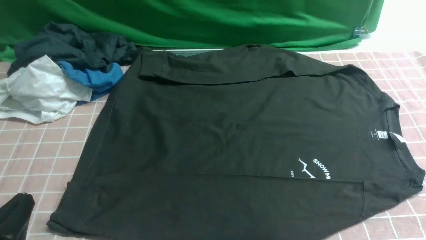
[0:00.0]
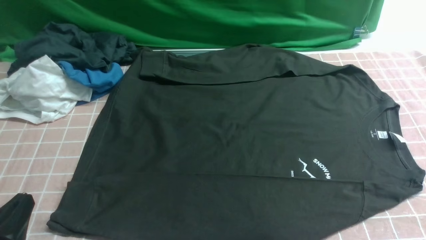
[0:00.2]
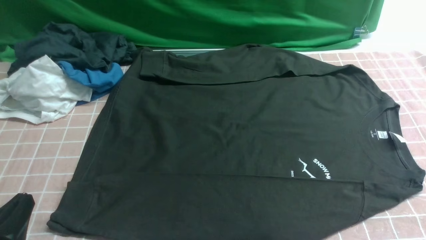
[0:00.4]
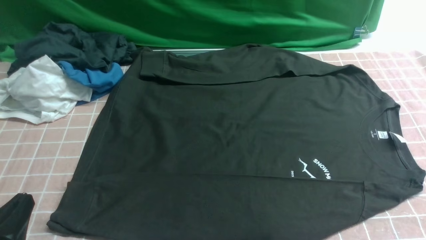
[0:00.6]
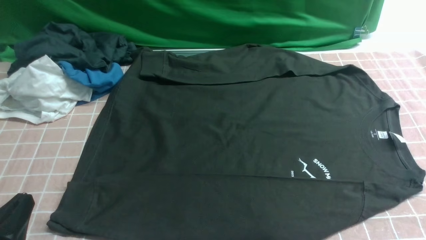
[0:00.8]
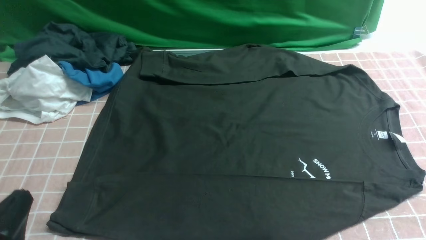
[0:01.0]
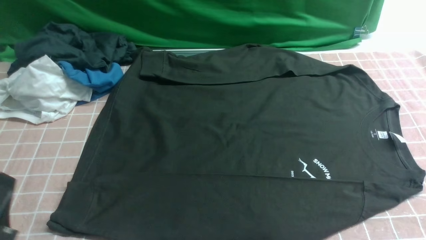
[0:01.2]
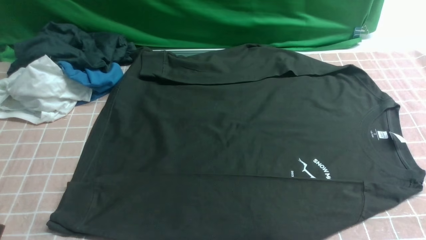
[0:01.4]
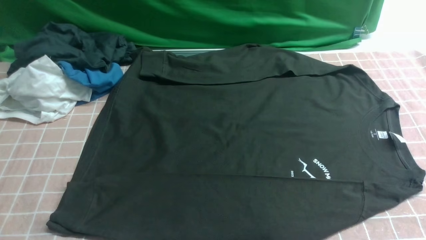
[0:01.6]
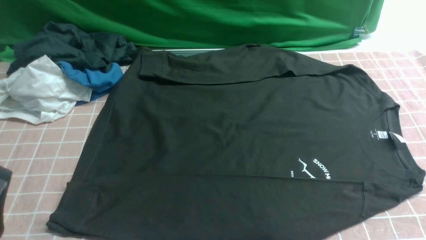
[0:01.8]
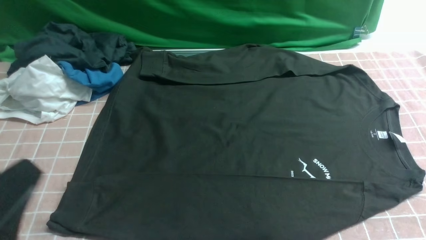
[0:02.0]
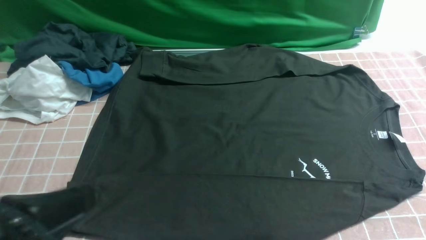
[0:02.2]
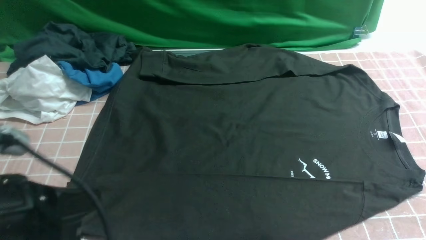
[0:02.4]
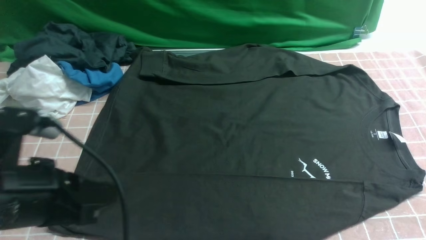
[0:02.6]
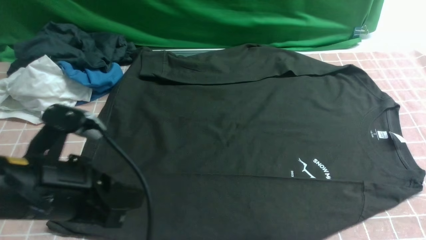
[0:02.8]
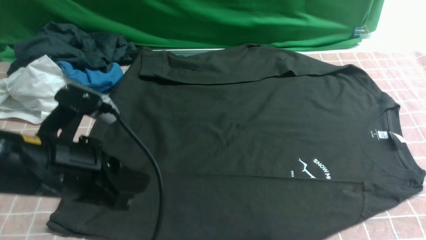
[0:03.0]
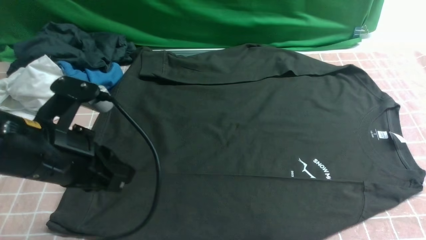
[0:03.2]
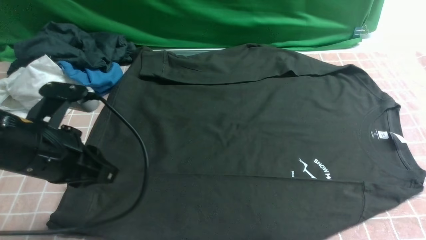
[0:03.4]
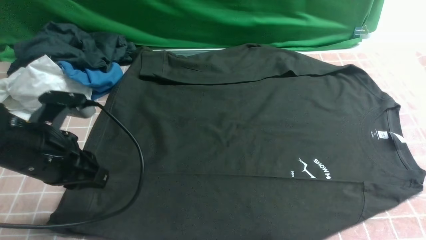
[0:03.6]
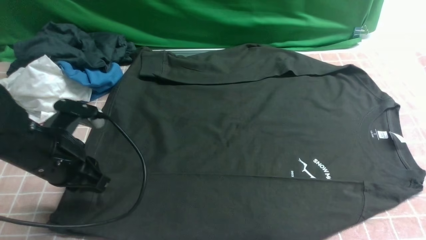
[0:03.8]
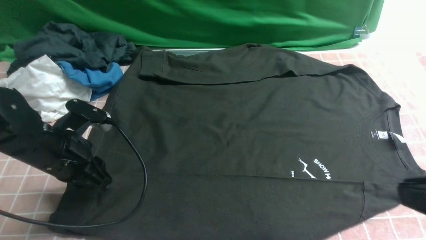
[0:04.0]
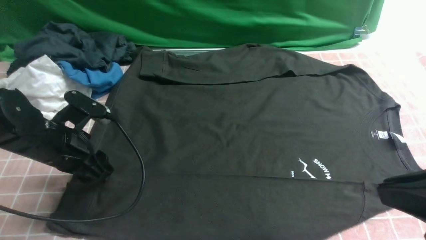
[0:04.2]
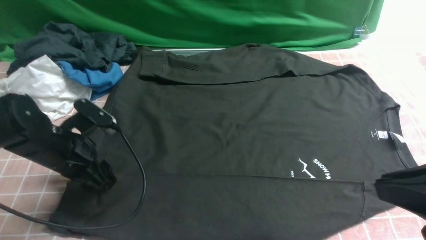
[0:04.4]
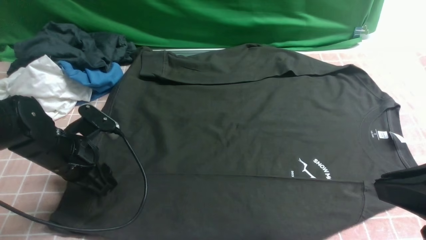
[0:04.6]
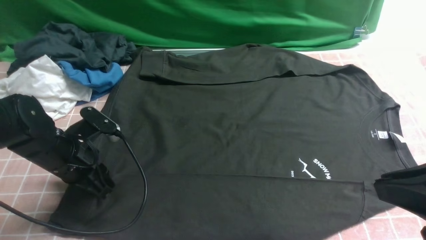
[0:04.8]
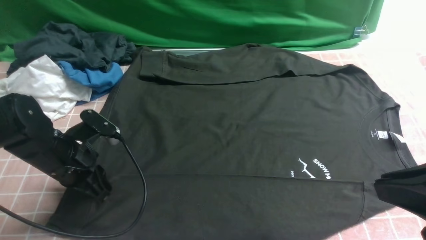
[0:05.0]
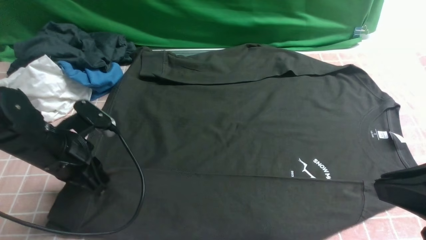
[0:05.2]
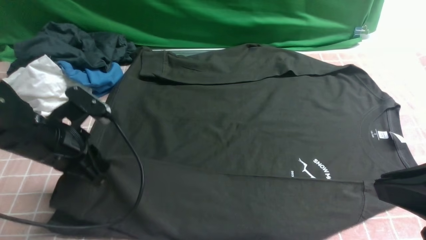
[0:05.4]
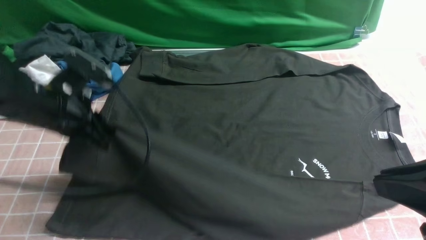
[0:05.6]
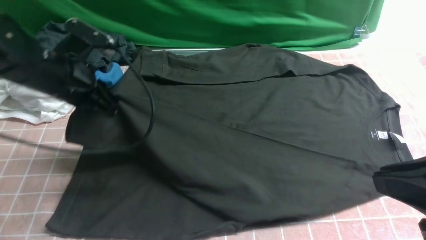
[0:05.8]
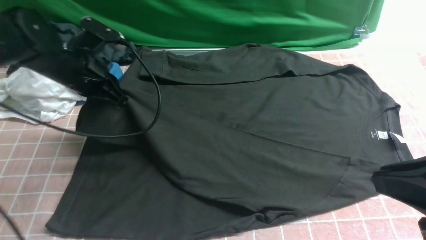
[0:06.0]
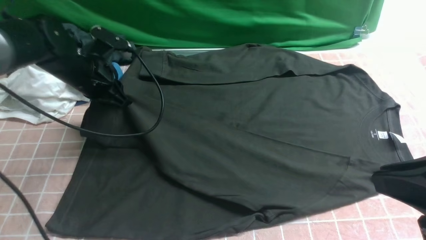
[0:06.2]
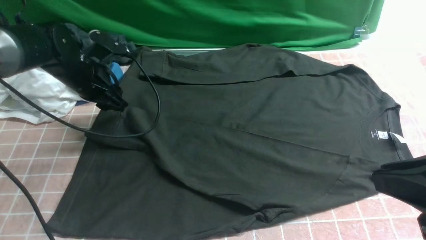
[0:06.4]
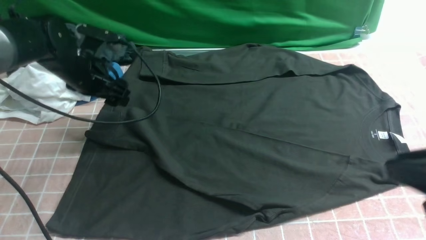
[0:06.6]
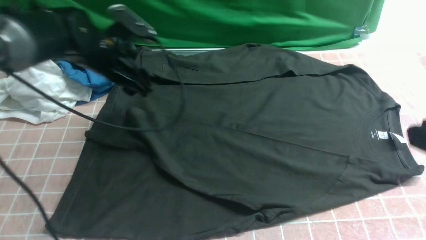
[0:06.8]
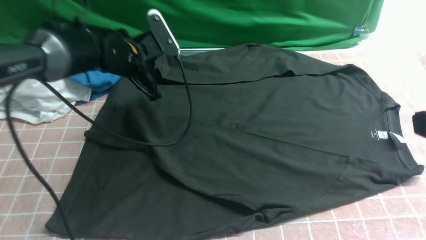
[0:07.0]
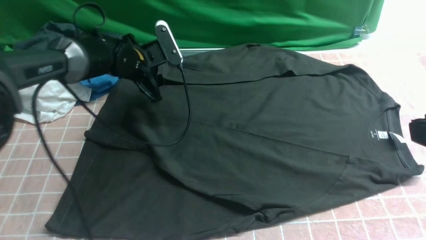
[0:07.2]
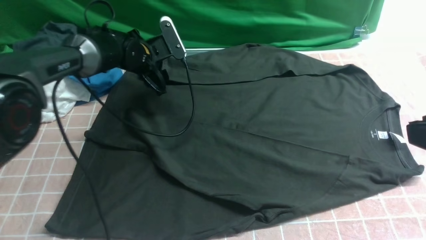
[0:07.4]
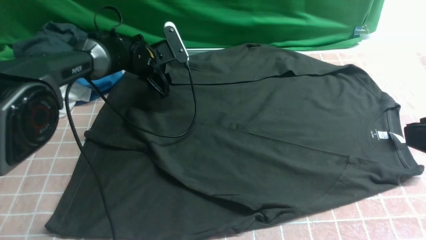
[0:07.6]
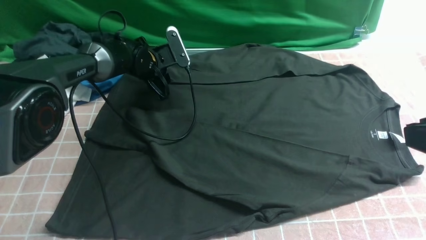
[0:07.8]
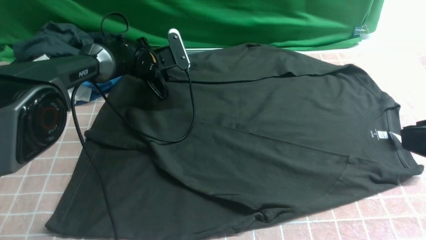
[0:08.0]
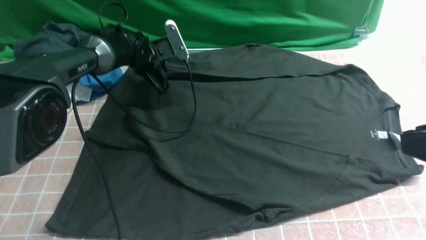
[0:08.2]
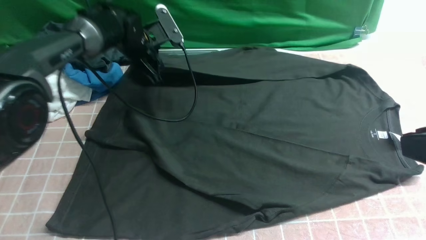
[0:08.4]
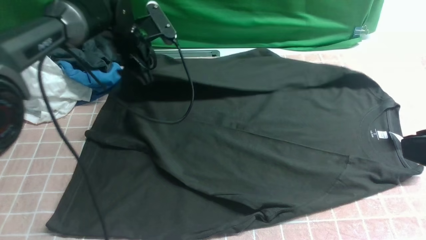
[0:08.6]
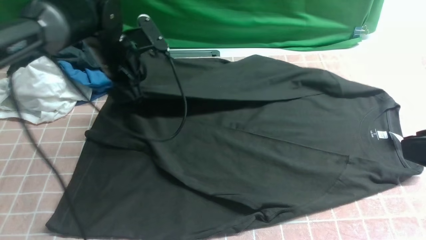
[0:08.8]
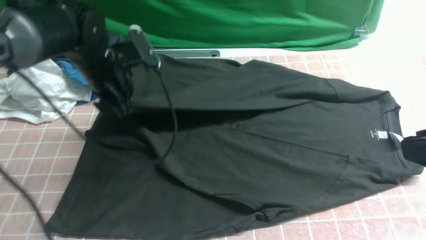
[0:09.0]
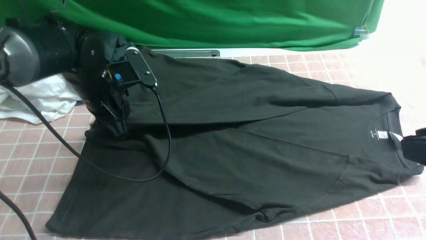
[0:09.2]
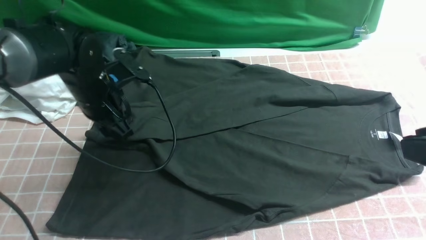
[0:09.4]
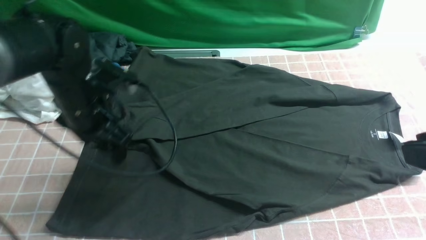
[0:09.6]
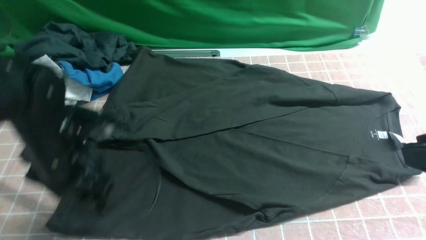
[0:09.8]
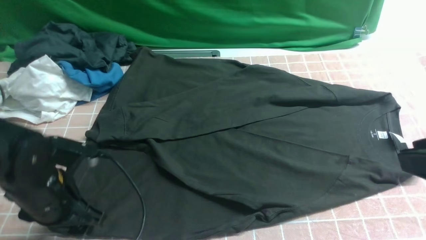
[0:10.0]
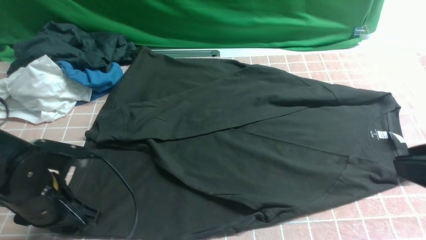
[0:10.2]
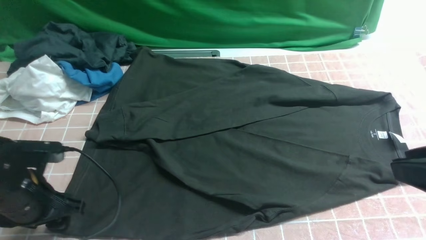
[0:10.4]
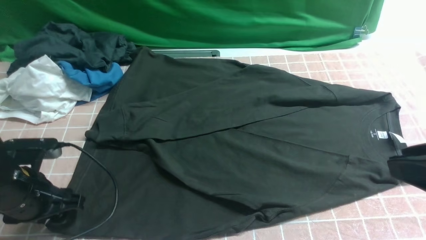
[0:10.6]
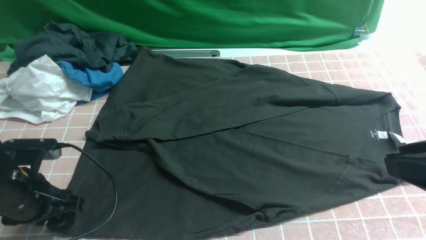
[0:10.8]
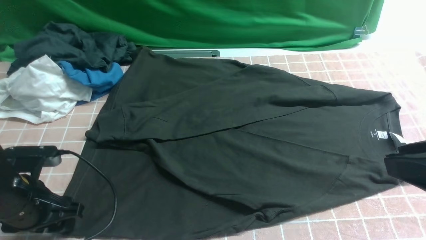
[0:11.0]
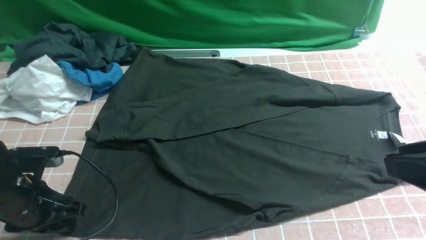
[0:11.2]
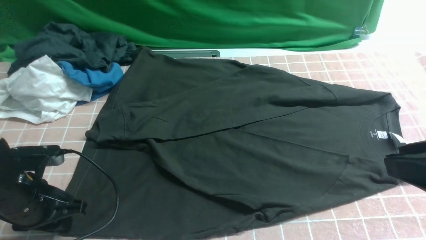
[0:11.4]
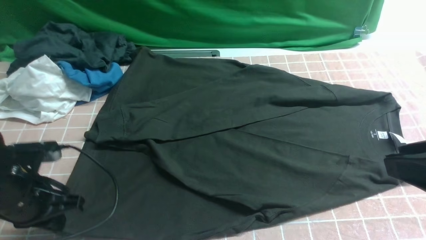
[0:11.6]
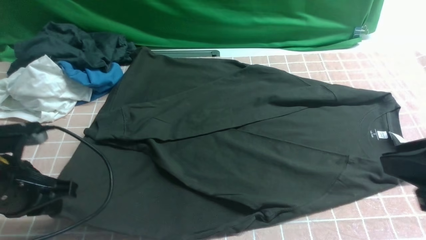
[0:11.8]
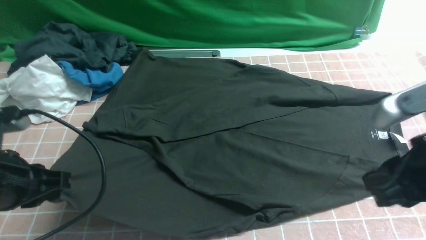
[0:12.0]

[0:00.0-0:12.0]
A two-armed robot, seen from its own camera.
Step, 0:00.0 to 0:04.8: use the left arm to clamp the cuff closest to it.
Step, 0:05.0 to 0:06.4: use the left arm to drag and place the cuff at the centered position on the left edge of the fabric.
Step, 0:06.6 to 0:08.0: use the left arm to clamp the cuff farthest from it.
Step, 0:08.2 to 0:09.2: use the left arm to drag and drop the cuff onto the cuff closest to the left arm.
0:01.6 to 0:03.0: The left gripper travels forward, to the right and upward by approximately 15 cm.
0:03.0 to 0:04.4: The left gripper heads downward, forward and to the left, covering some 15 cm, and opens up, while the right gripper goes about 15 cm upward, to the left and forward, and closes up.
0:04.4 to 0:06.0: The left gripper moves forward and upward, approximately 10 cm, and closes.
0:06.0 to 0:07.6: The left gripper moves forward, downward and to the right, approximately 15 cm, and opens its fingers.
0:07.6 to 0:09.0: The left gripper is displaced backward and upward by some 15 cm, and closes.
0:09.0 to 0:10.4: The left gripper goes roughly 20 cm backward, and opens.
0:10.4 to 0:12.0: The left gripper shifts roughly 10 cm upward, and closes up; the right gripper travels forward and downward by some 10 cm.

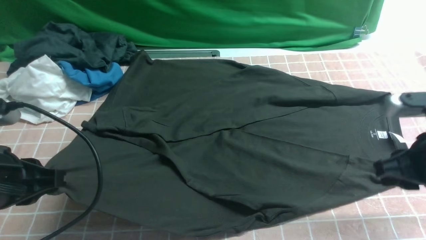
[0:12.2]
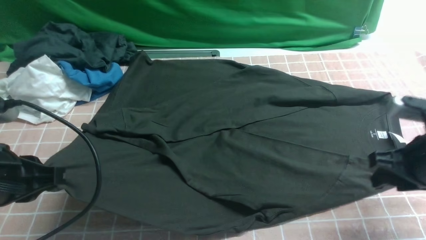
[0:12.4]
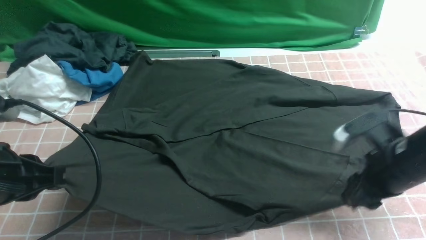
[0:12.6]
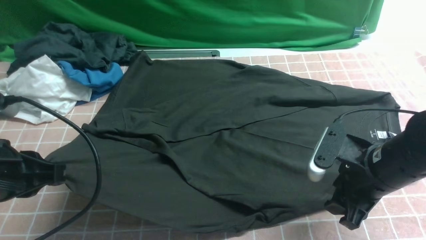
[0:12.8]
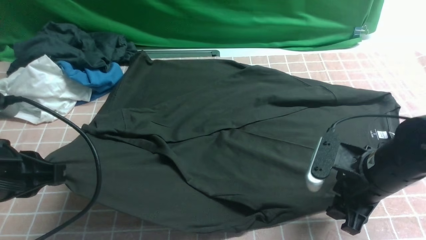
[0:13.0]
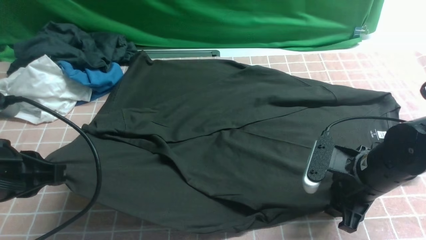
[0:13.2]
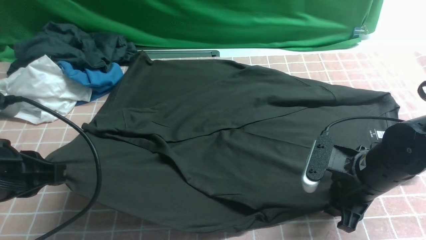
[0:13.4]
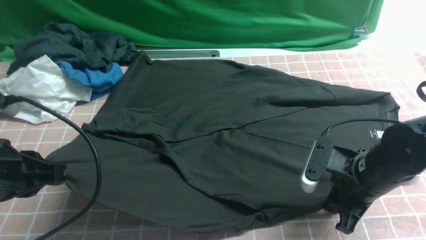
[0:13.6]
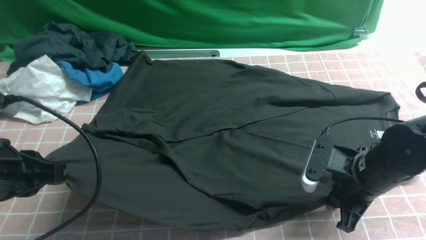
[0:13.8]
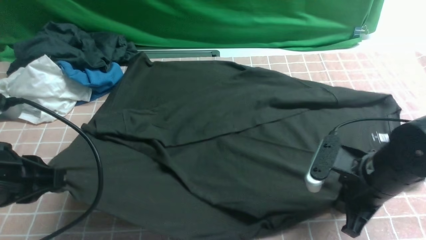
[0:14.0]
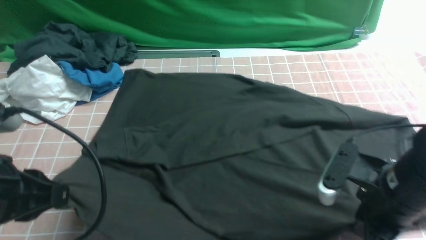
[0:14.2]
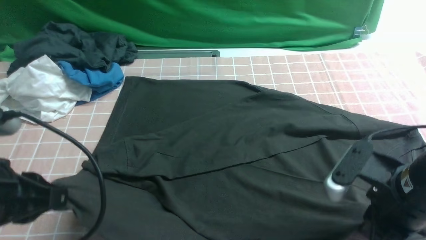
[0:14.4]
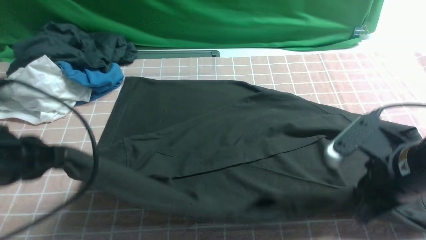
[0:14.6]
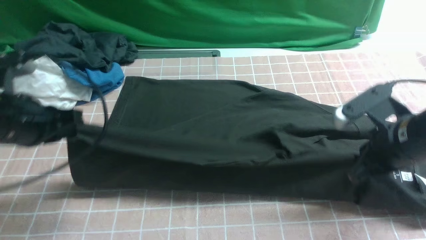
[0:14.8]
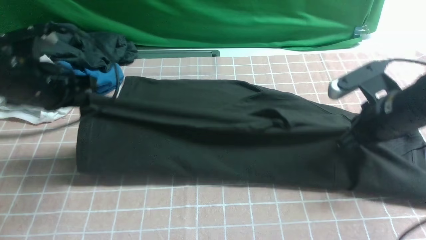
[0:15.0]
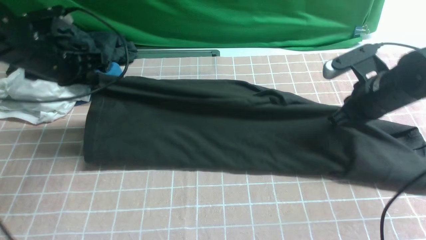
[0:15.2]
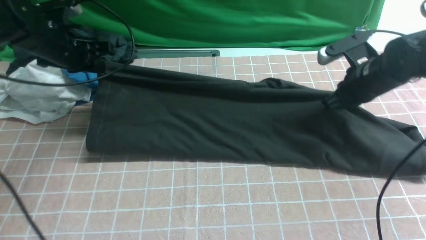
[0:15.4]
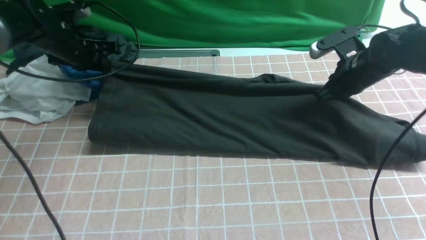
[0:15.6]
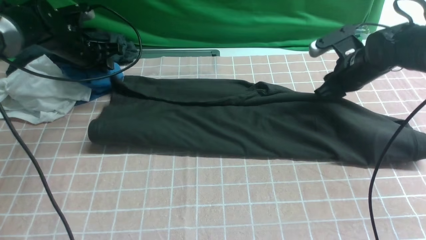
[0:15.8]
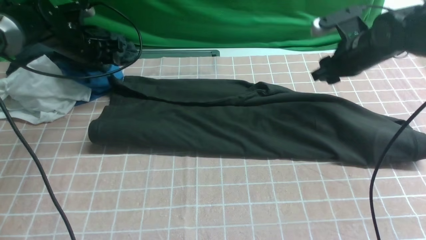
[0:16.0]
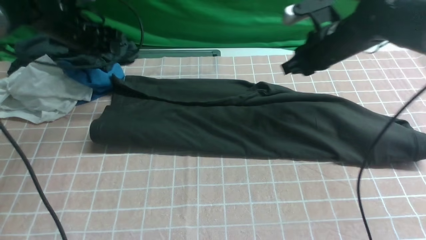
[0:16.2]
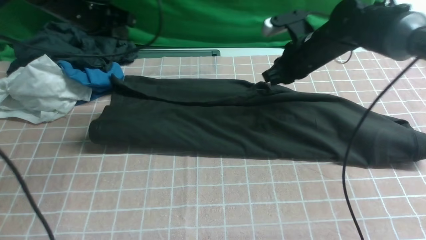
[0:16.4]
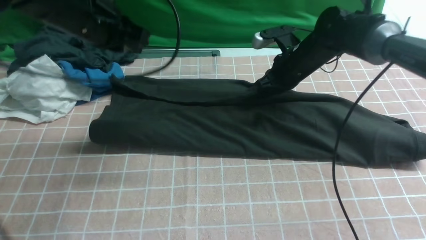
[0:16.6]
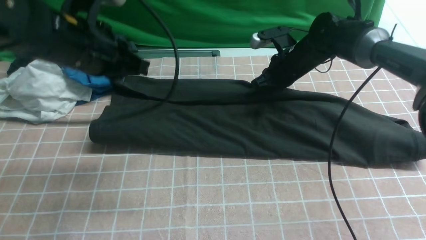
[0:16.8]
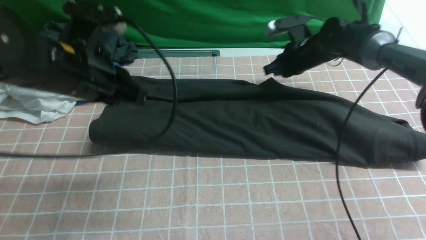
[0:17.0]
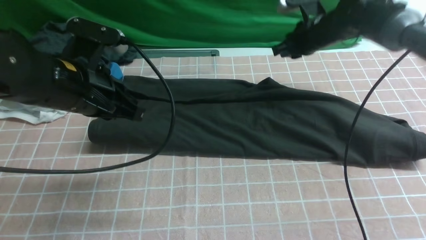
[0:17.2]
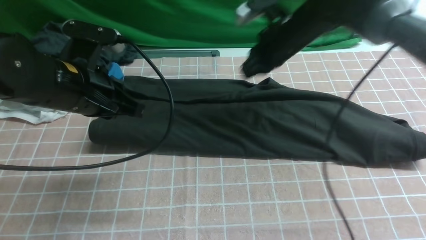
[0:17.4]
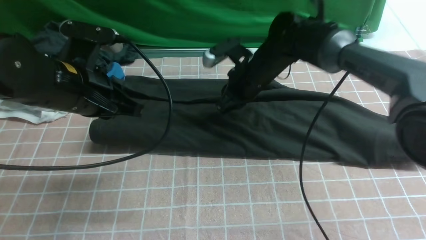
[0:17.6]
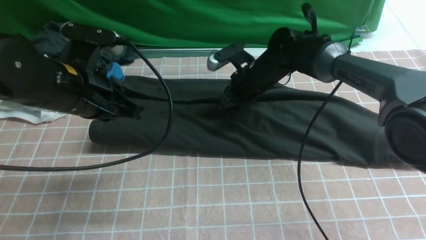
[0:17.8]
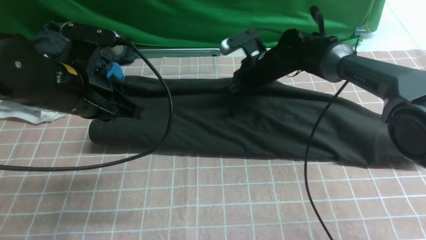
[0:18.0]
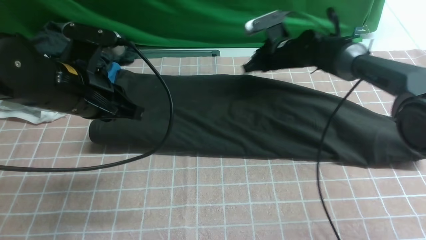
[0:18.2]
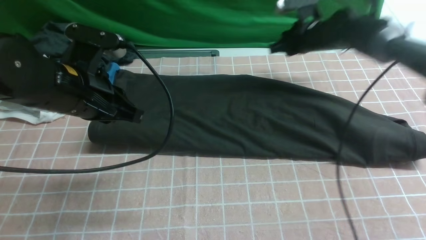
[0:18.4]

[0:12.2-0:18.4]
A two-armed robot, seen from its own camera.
Step, 0:14.0 to 0:15.8: use both arms to drag the lower edge of the fabric forward and fold it over the upper edge.
0:12.2 to 0:13.8: The right gripper is displaced downward by approximately 10 cm, and closes its fingers.
0:13.8 to 0:15.4: The right gripper moves forward, about 15 cm; the left gripper shifts roughly 30 cm forward.
0:15.4 to 0:16.8: The left gripper shifts about 15 cm backward, to the right and upward, and opens, then closes again. The right gripper heads forward and to the left, covering roughly 15 cm, and opens, then closes once more.
0:16.8 to 0:18.4: The left gripper shifts by about 5 cm. Meanwhile the right gripper goes roughly 5 cm upward, and goes to the left and returns, approximately 10 cm each way.
